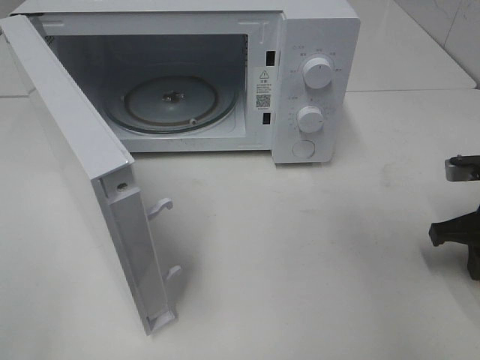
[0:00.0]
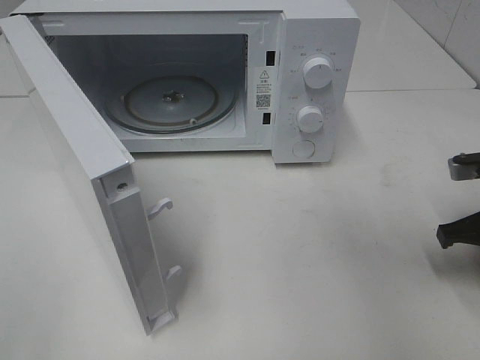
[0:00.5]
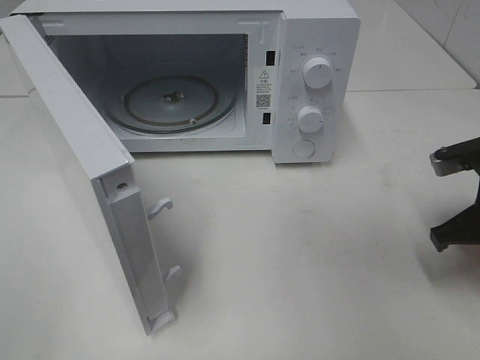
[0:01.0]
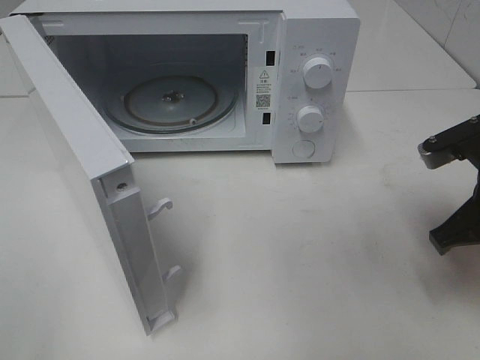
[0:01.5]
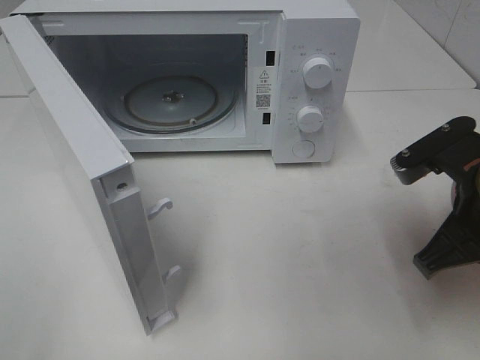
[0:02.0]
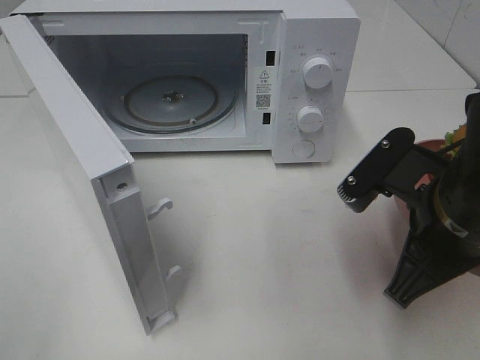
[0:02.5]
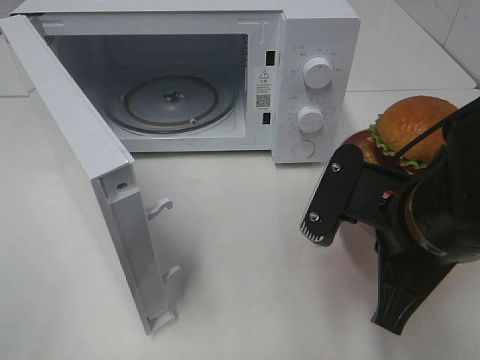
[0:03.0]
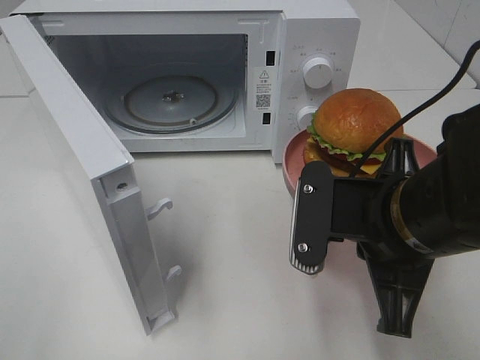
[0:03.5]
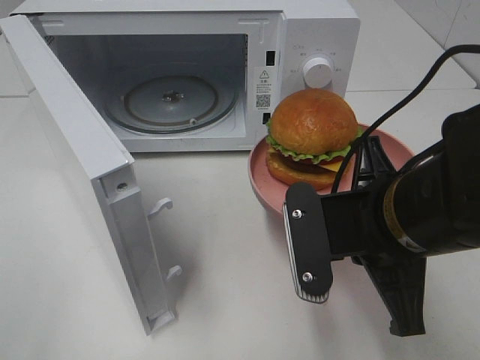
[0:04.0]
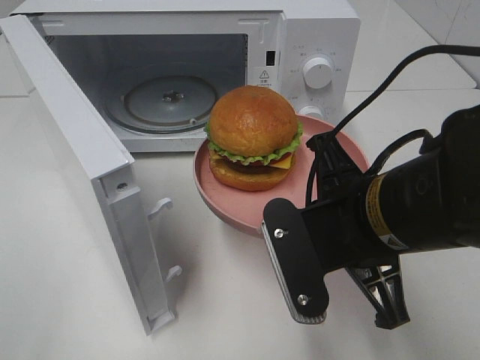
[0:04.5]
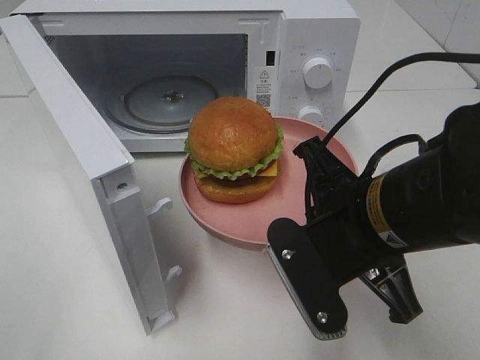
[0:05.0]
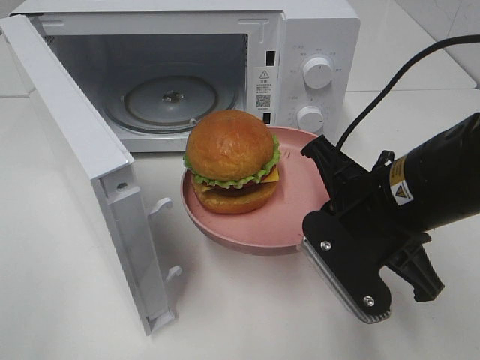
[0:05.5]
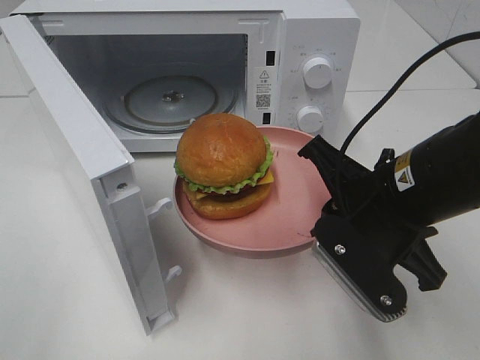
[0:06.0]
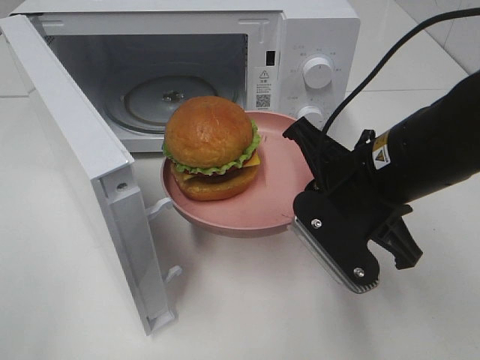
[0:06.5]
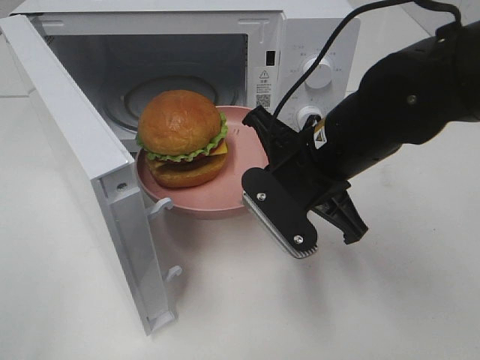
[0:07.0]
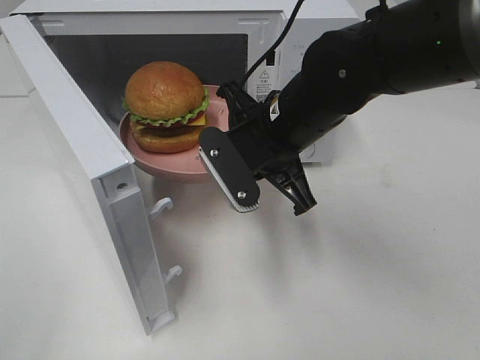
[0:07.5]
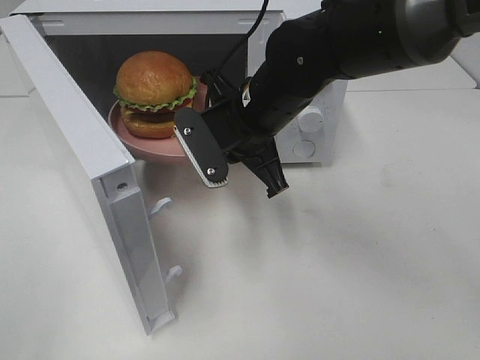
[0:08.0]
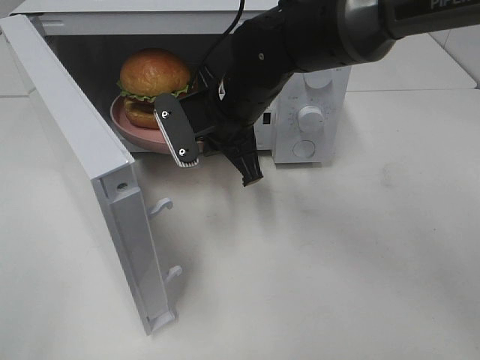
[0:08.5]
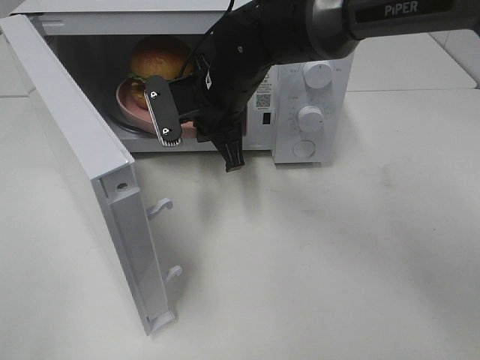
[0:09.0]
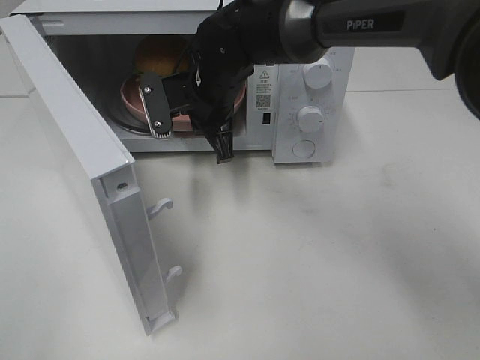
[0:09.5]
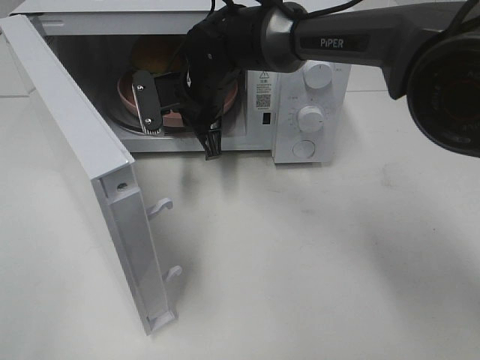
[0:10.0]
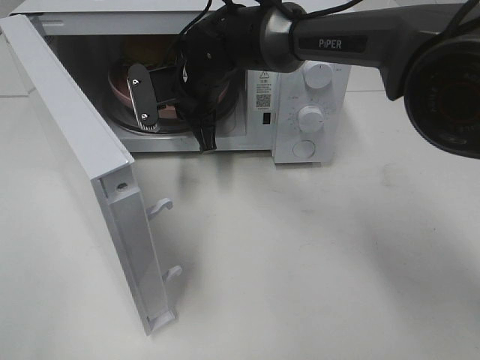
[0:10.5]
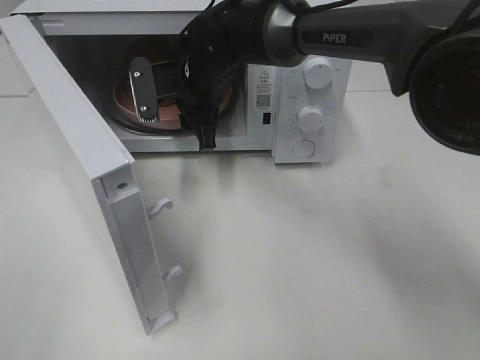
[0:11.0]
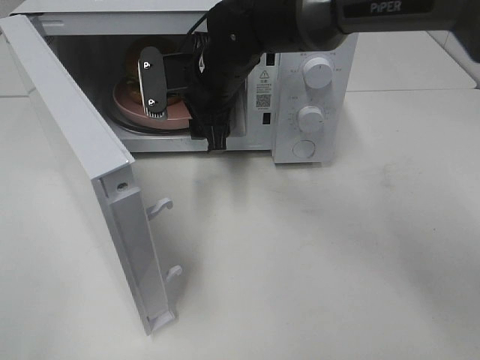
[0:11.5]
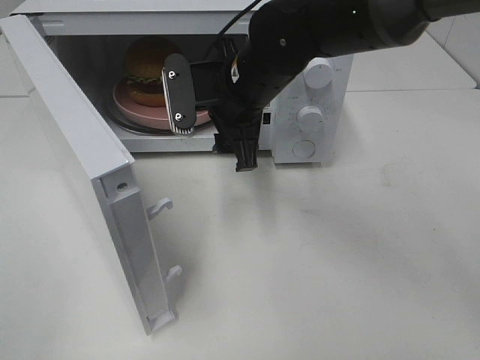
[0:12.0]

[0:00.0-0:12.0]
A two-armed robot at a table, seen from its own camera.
Task of the whole recording: Heat the burger.
Step, 0:02.0 to 0:11.0: Right hand: place the plate in the microwave.
0:00.0 to 0:02.0: The right gripper moves to the left, upward and backward, approximately 15 cm.
0:02.0 to 0:04.0: The right gripper heads to the left, covering roughly 10 cm.
0:06.0 to 0:08.0: The right gripper heads forward and to the left, covering about 15 cm.
0:08.0 to 0:10.0: The right gripper goes approximately 10 cm forward and to the left.
0:10.0 to 0:12.0: The right gripper is displaced backward and to the right by some 10 cm, and opens up.

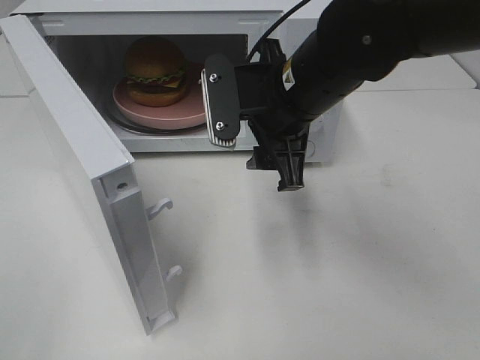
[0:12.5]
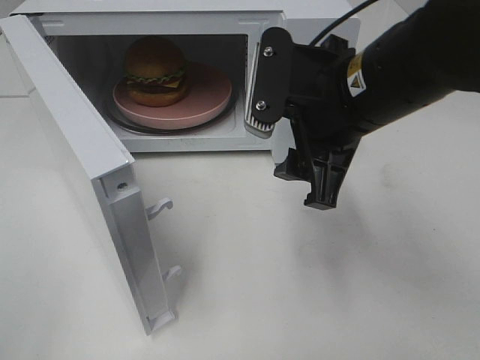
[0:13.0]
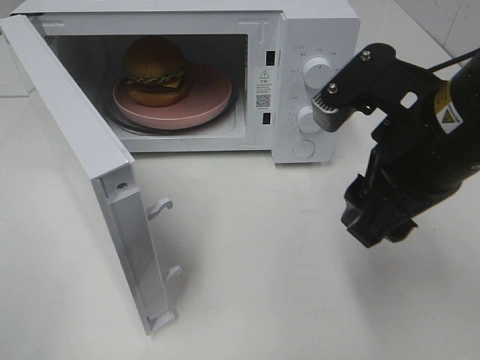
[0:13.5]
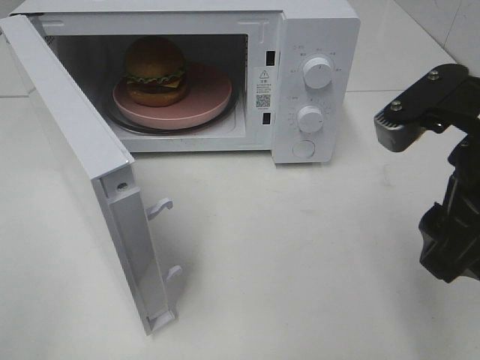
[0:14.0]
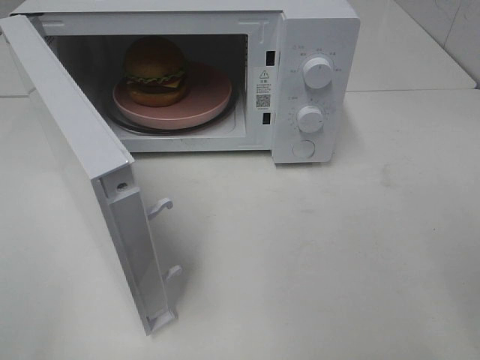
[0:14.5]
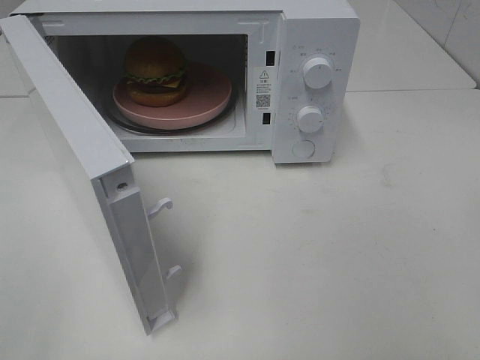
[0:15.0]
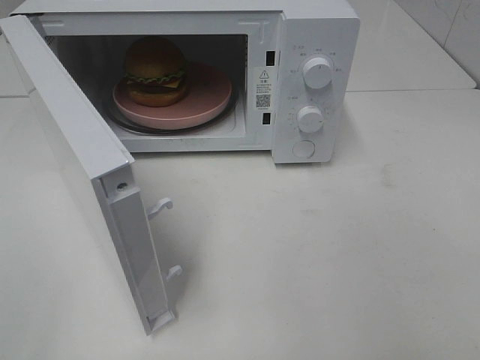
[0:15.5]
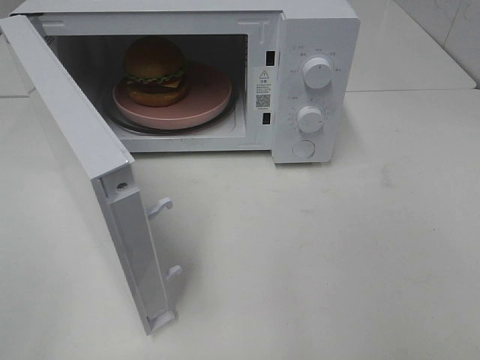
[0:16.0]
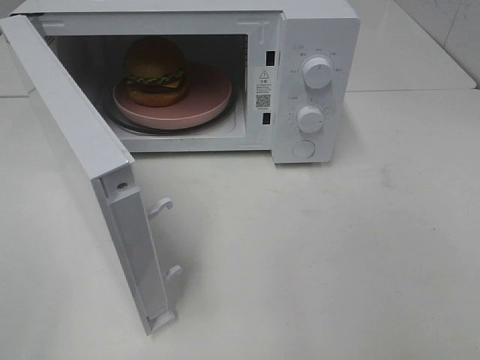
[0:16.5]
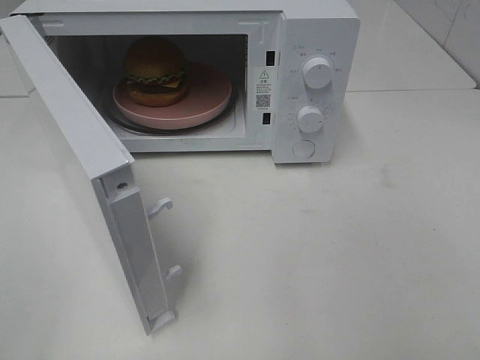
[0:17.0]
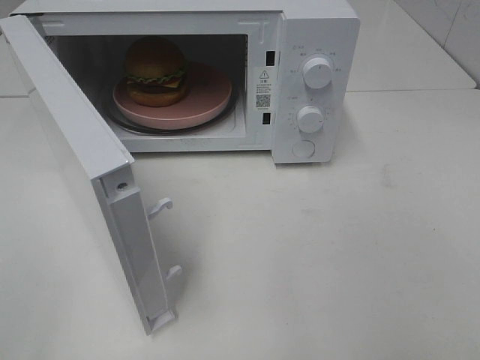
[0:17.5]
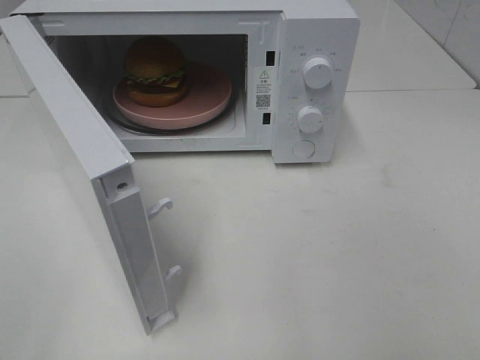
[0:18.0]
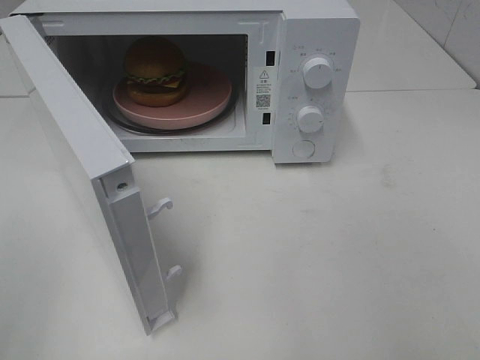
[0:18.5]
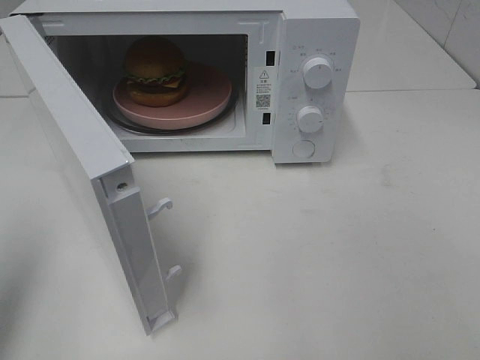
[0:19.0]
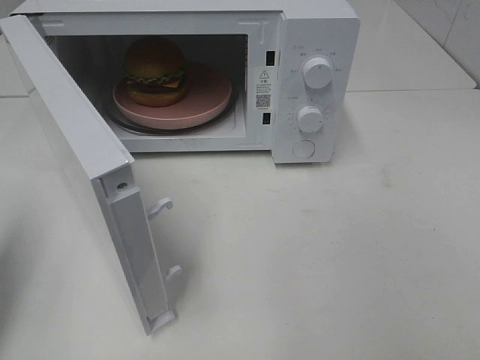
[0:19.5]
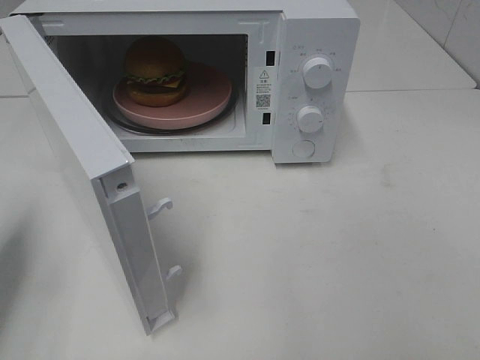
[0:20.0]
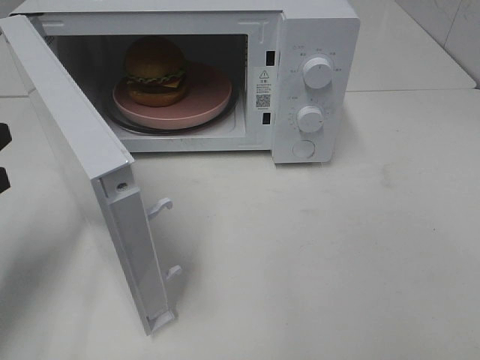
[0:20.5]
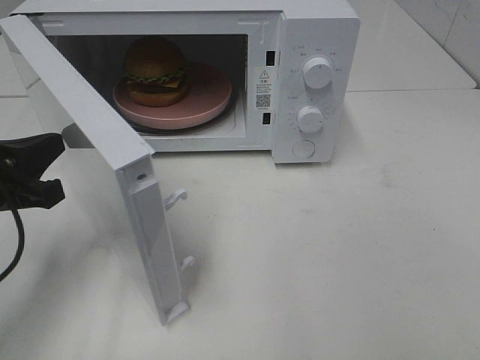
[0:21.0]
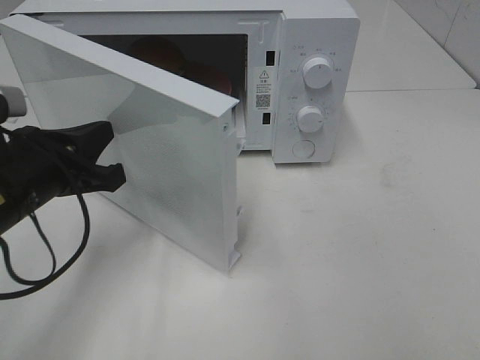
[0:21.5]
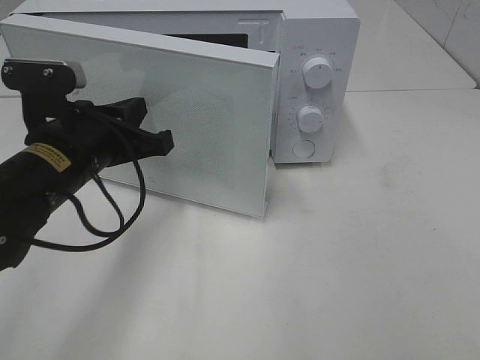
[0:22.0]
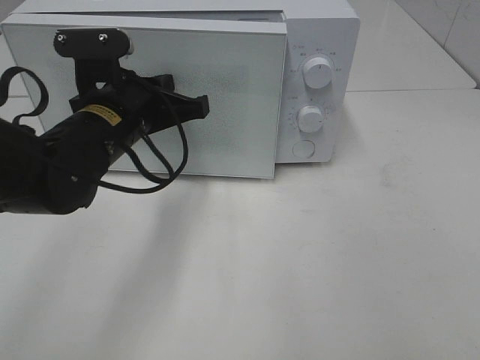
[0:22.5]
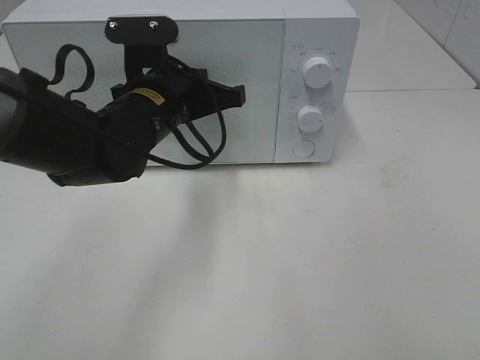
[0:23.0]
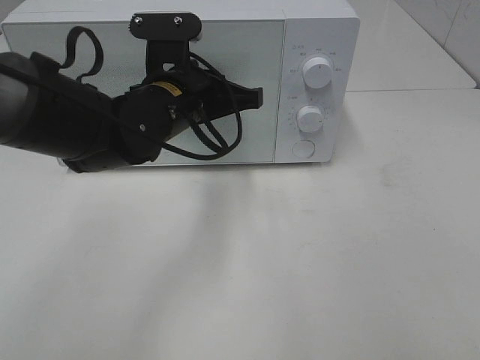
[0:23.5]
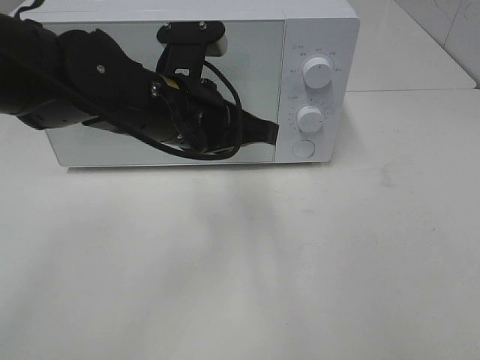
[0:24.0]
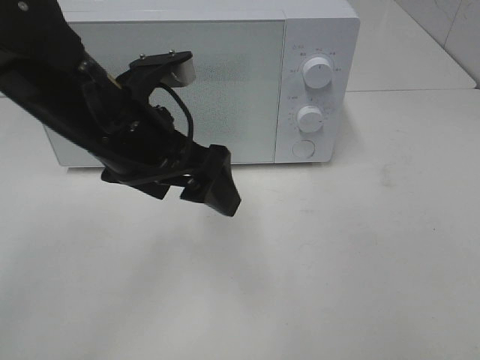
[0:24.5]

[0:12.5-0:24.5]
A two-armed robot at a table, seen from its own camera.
Task of the whole recording: Heat the burger.
Step, 0:12.5 to 0:23.5: Left hand: close the microwave door.
0:12.5 to 0:14.5: The right gripper is displaced to the right and backward by roughly 25 cm.
0:18.5 to 0:20.5: The left gripper shifts about 20 cm forward and downward, and closes up.
0:20.5 to 0:22.5: The left gripper goes approximately 20 cm to the right and forward.
0:22.5 to 0:24.5: The left gripper travels upward by roughly 5 cm, and opens its fingers.

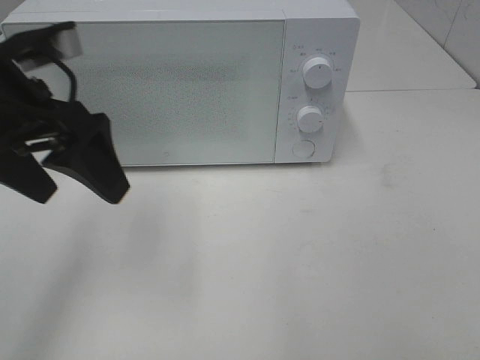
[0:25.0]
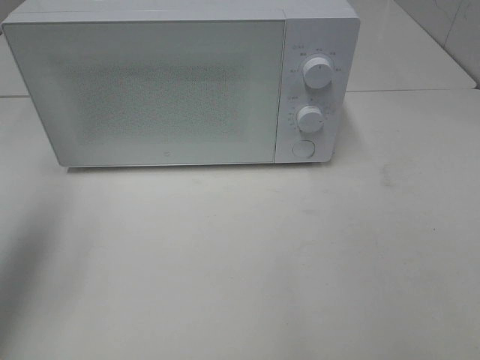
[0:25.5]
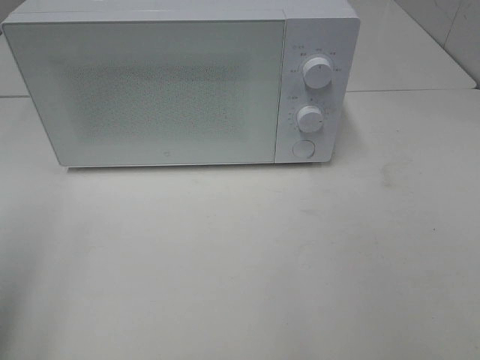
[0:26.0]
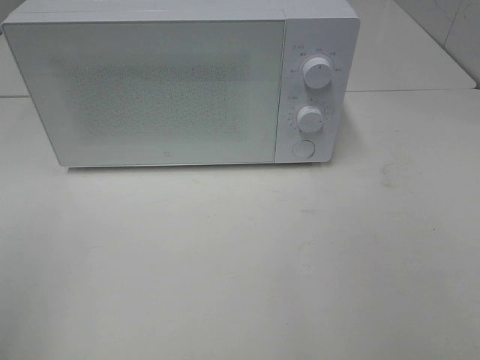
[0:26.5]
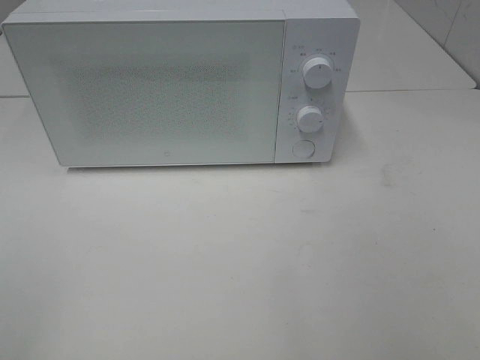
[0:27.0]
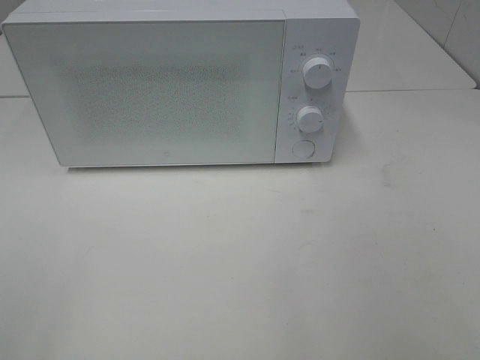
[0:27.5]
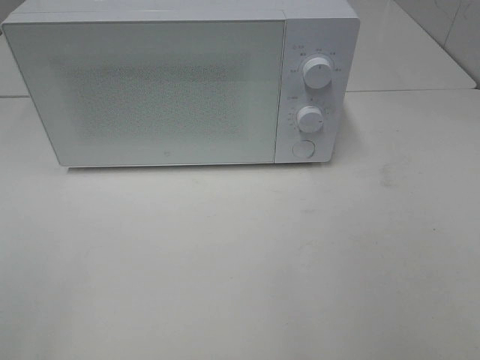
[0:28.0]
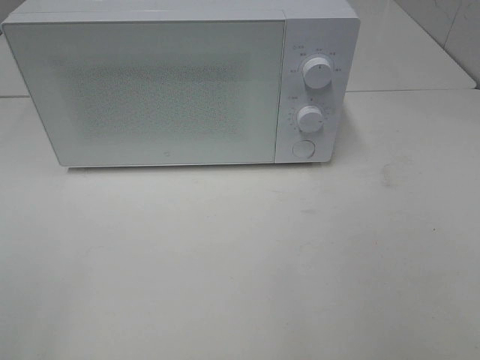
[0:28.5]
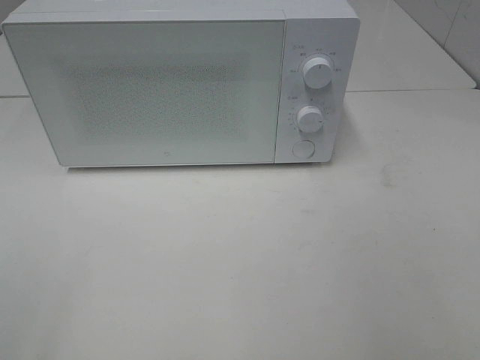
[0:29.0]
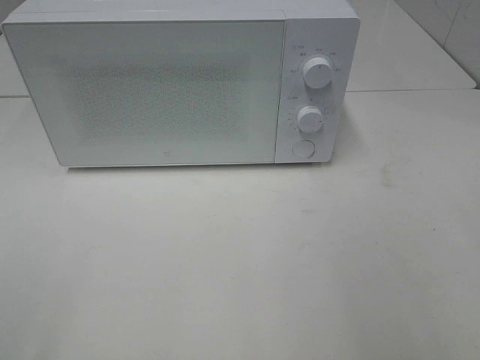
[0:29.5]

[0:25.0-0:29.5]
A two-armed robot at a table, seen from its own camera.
Task of the whole recording: Heat the burger.
0:25.0 to 0:27.0: The left gripper heads backward and to the left, covering approximately 30 cm.
